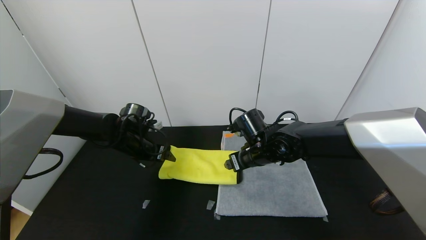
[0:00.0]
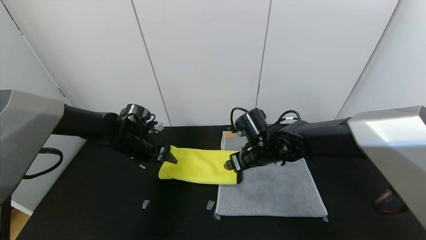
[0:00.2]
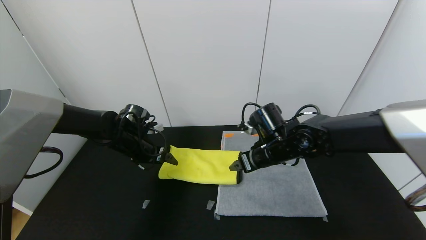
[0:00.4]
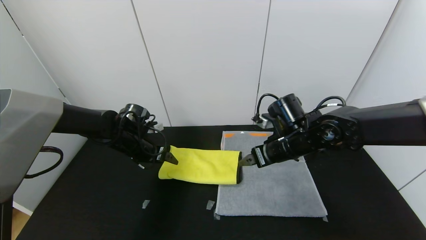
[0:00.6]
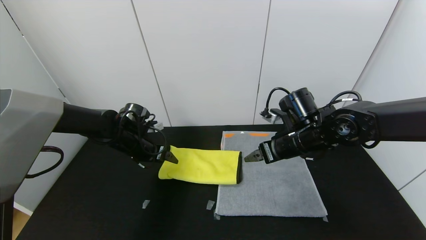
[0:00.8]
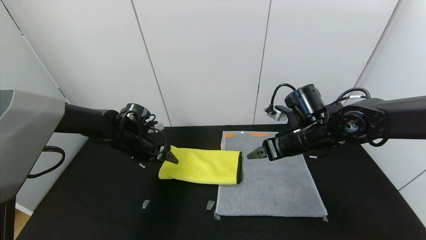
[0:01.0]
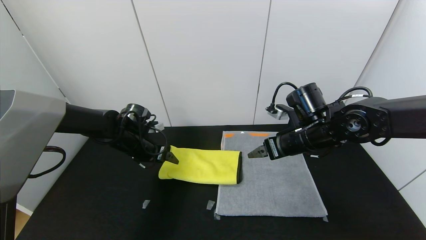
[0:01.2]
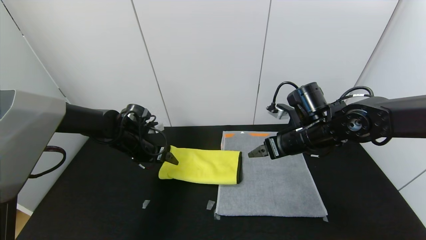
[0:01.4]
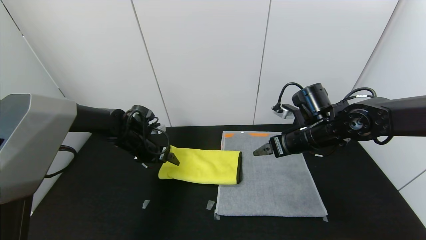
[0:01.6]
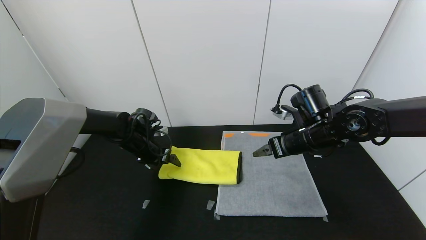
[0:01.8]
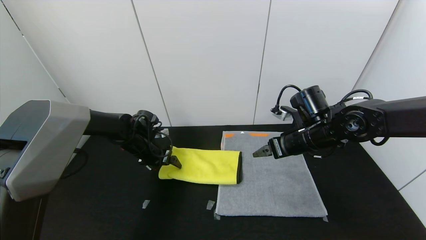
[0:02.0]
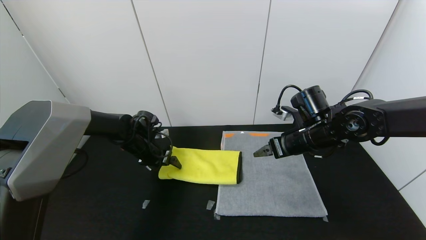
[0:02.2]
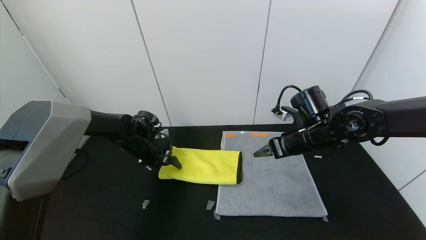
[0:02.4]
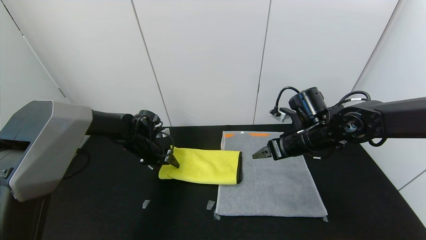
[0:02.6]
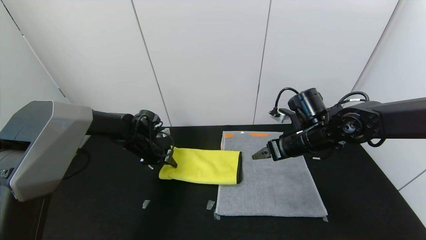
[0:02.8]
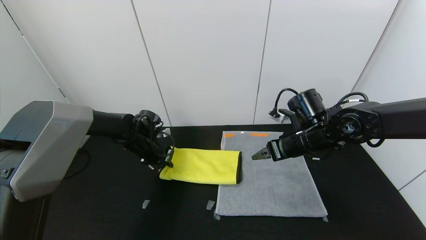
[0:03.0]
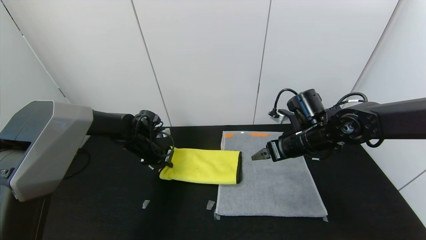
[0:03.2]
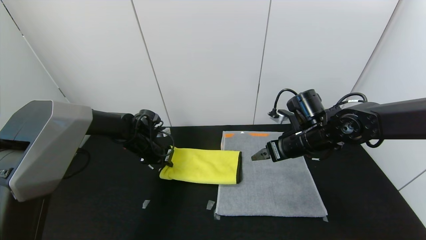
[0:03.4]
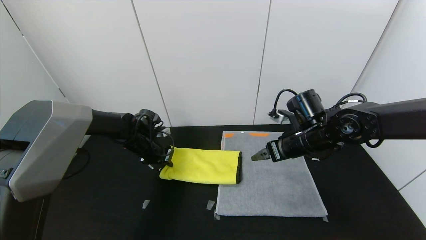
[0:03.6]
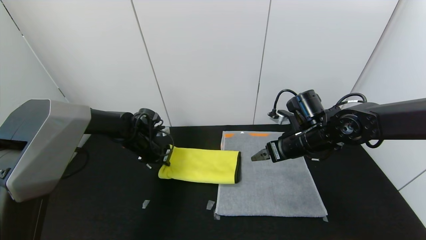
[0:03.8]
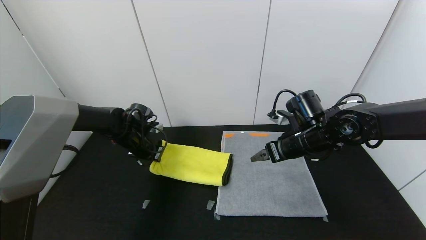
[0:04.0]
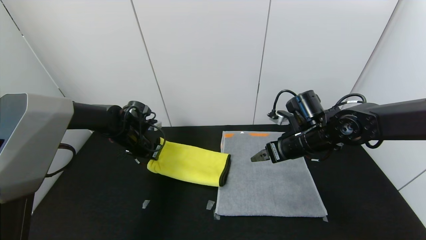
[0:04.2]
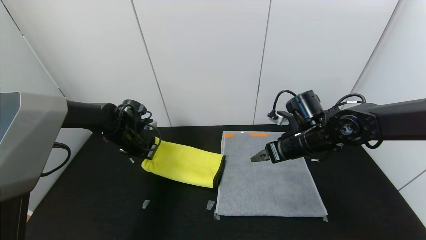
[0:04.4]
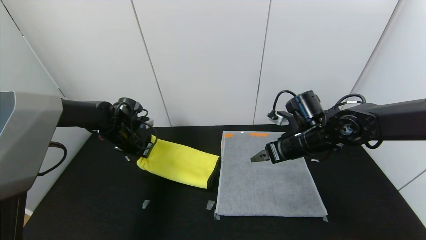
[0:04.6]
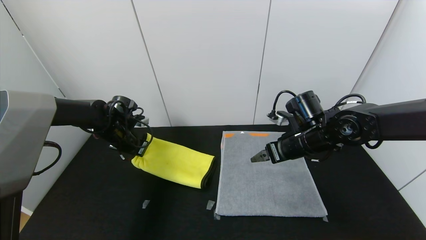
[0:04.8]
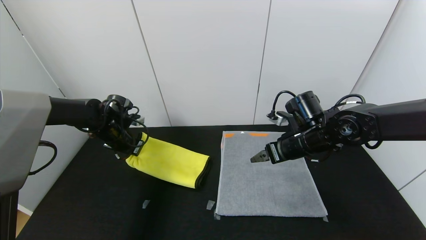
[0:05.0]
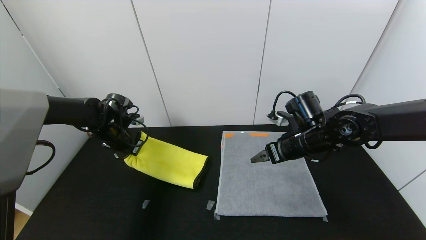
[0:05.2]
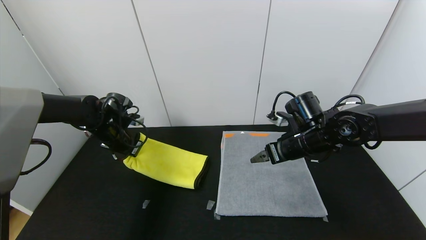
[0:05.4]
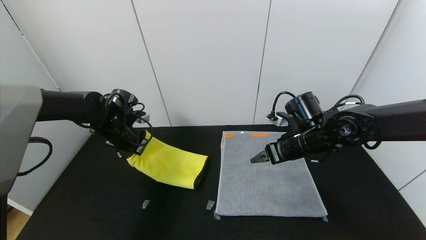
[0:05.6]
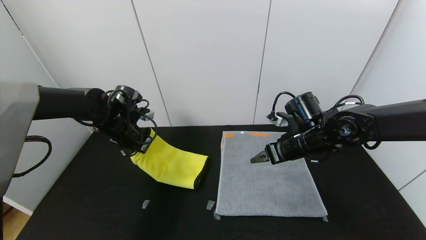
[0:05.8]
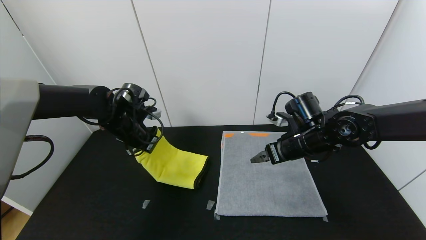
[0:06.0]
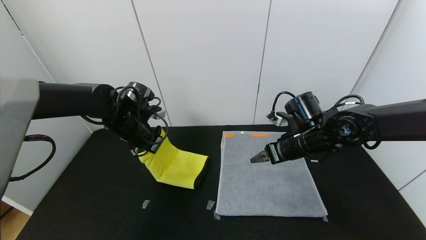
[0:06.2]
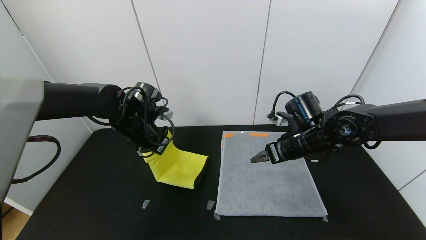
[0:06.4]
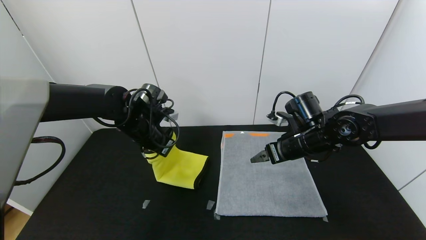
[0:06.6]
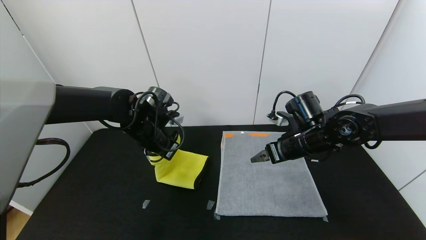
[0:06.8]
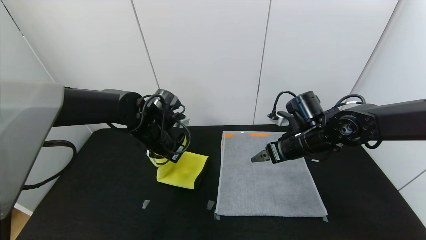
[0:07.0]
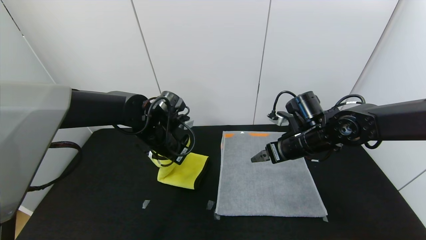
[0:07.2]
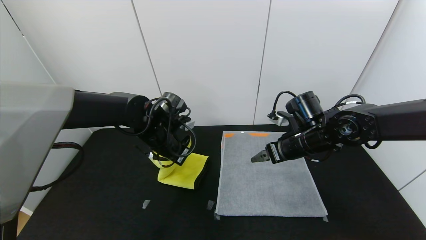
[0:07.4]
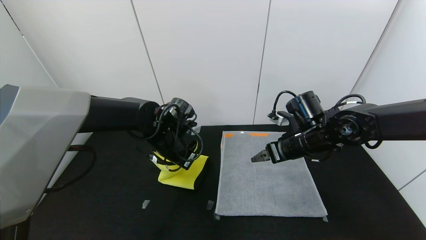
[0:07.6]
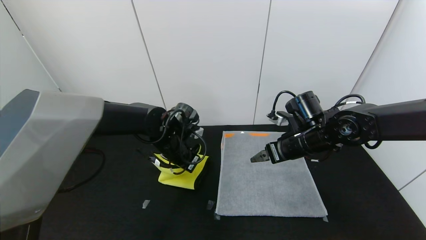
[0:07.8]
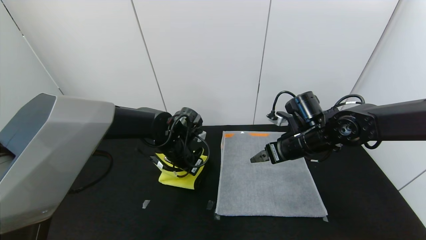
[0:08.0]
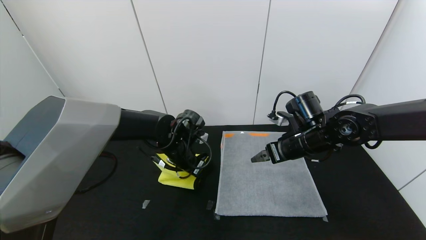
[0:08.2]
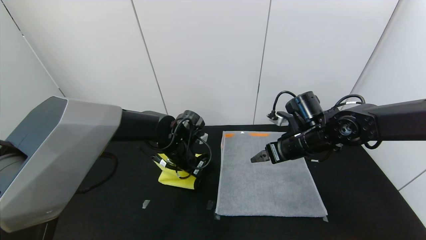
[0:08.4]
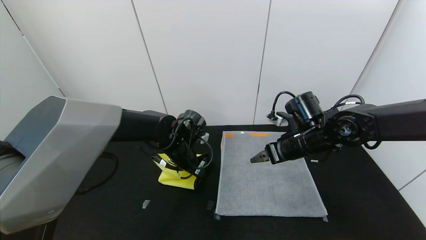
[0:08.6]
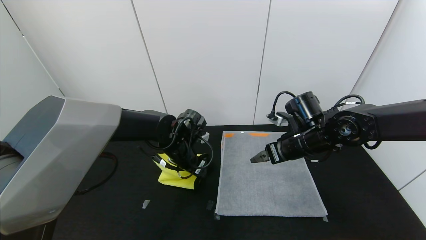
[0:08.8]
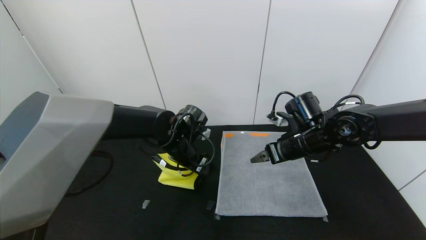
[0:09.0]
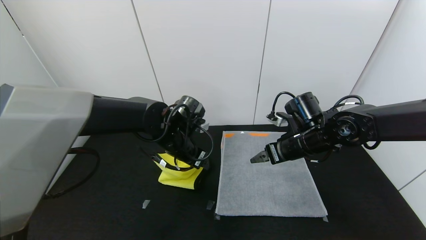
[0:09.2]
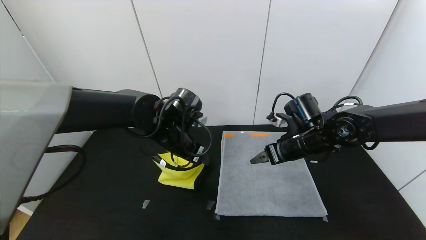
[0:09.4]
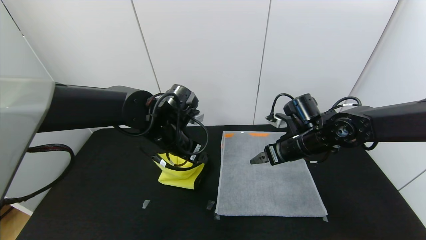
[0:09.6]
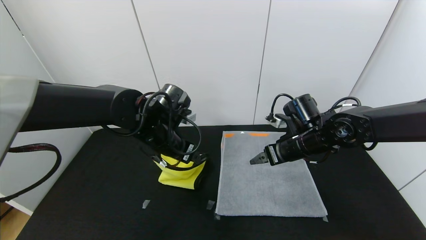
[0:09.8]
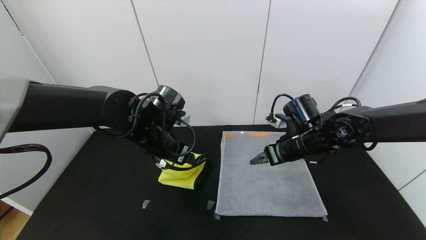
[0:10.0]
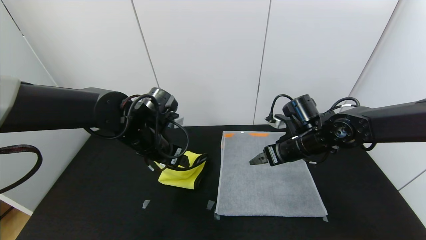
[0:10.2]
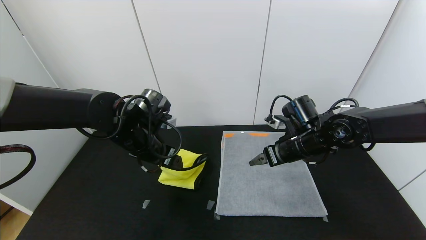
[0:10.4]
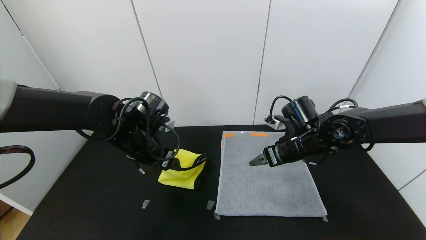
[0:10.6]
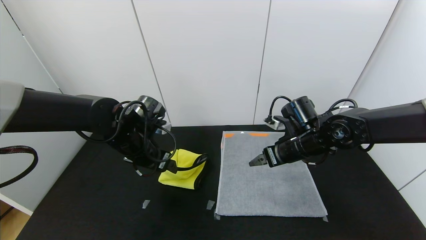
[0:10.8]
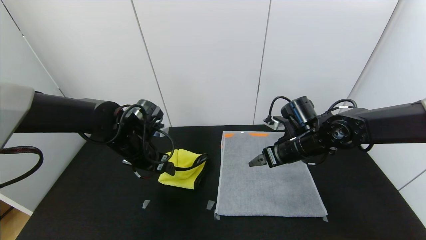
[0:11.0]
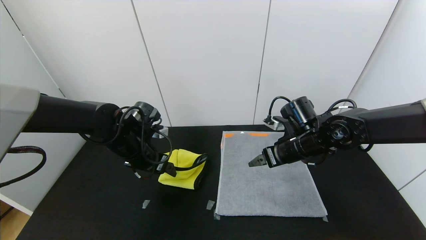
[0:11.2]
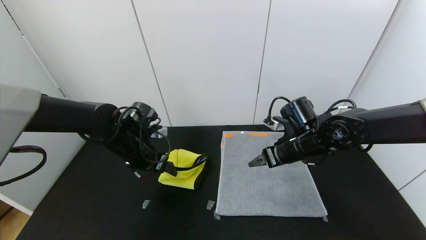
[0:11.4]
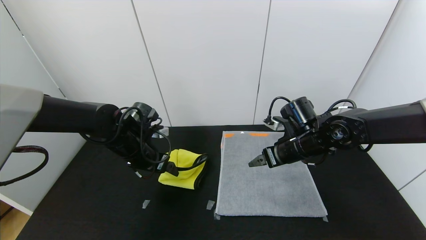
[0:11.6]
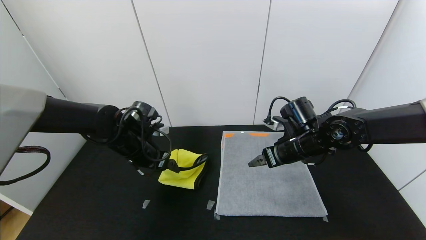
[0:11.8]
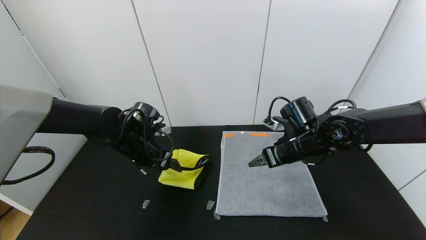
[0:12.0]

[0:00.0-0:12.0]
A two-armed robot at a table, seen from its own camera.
Task of the whole recording: Use the gripper to fold the yellow towel and grey towel in half twice,then put the yellow towel on the grey towel.
0:00.0 to 0:01.6: The right gripper heads to the right and upward, covering some 10 cm.
0:01.6 to 0:03.0: The left gripper closes.
0:03.0 to 0:04.4: The grippers move only a little.
0:04.4 to 0:06.0: The left gripper travels upward by some 5 cm.
0:06.0 to 0:07.6: The left gripper heads to the right, covering some 10 cm.
0:07.6 to 0:09.0: The left gripper opens up.
0:09.0 to 0:10.4: The left gripper is displaced to the left by some 5 cm.
0:10.4 to 0:12.0: The left gripper ends up approximately 5 cm from where it was.

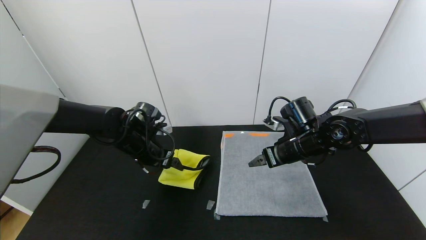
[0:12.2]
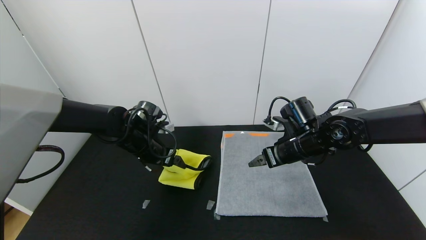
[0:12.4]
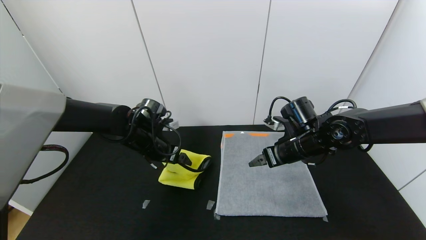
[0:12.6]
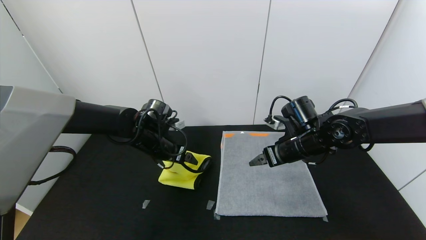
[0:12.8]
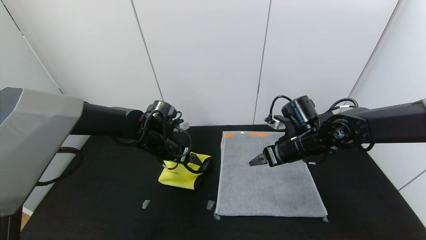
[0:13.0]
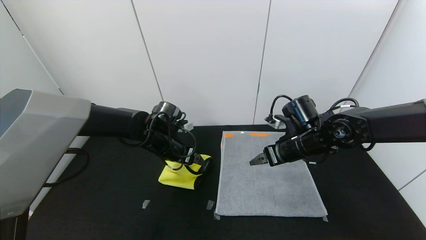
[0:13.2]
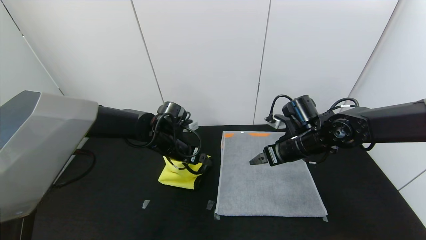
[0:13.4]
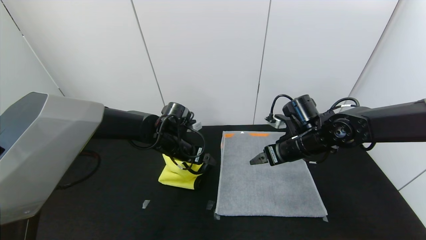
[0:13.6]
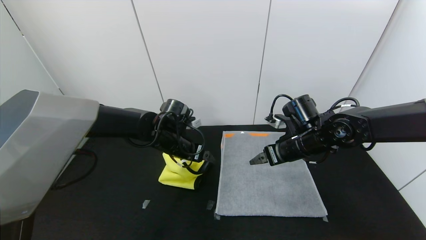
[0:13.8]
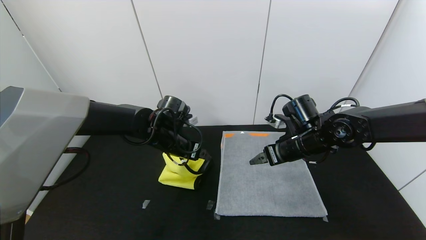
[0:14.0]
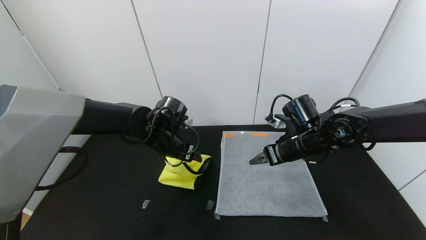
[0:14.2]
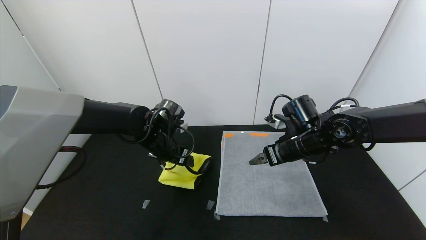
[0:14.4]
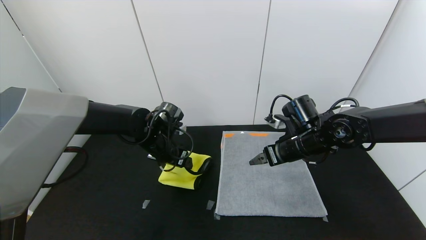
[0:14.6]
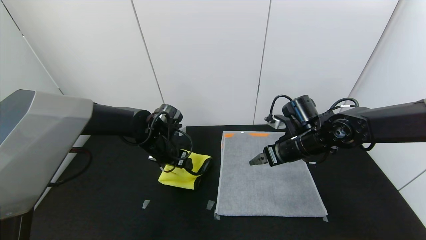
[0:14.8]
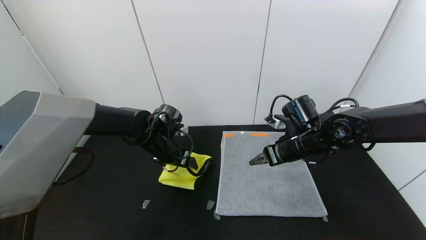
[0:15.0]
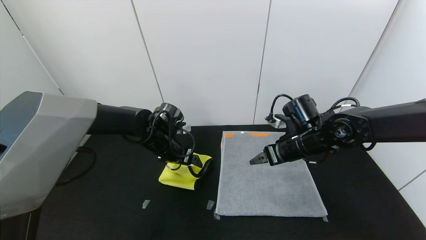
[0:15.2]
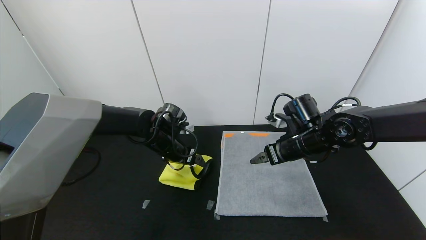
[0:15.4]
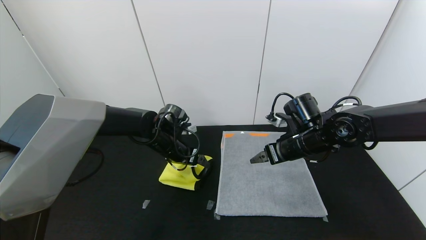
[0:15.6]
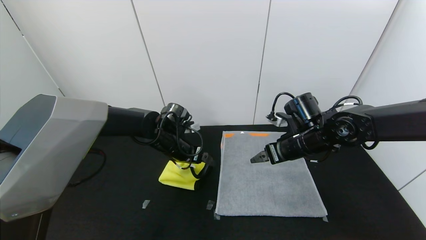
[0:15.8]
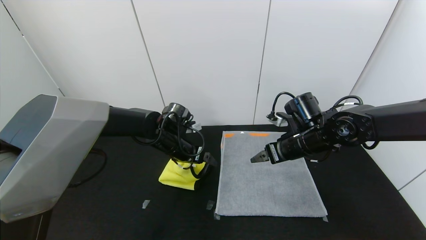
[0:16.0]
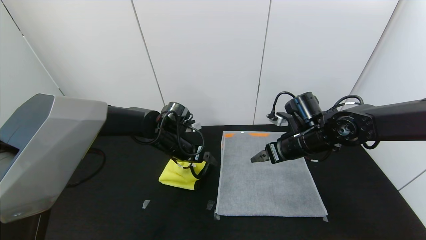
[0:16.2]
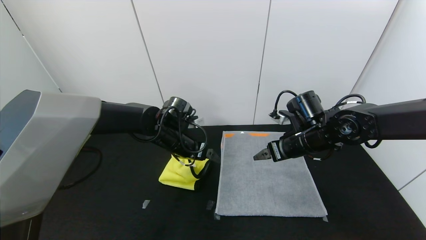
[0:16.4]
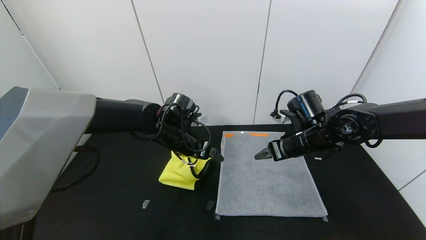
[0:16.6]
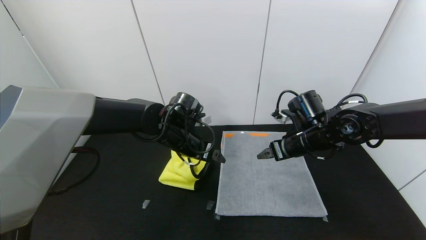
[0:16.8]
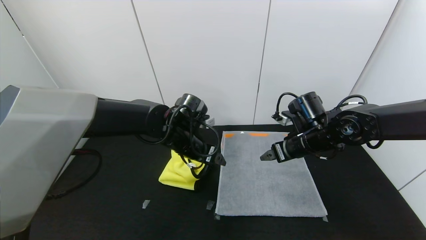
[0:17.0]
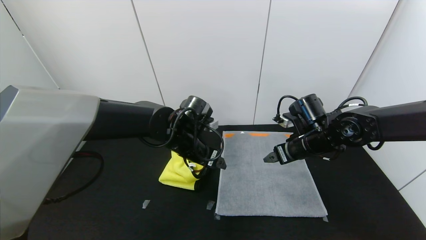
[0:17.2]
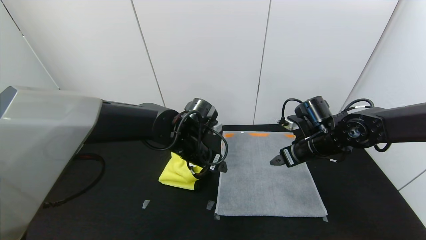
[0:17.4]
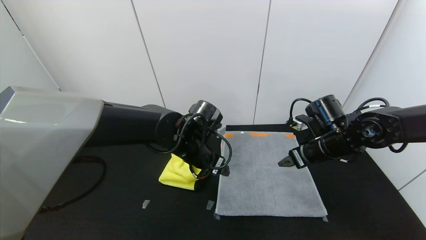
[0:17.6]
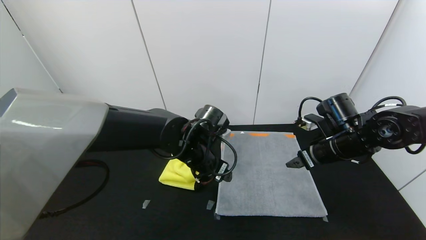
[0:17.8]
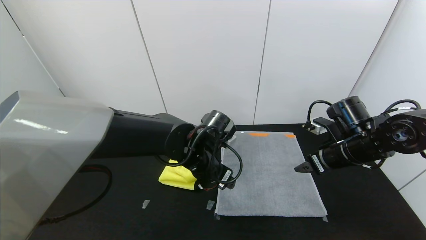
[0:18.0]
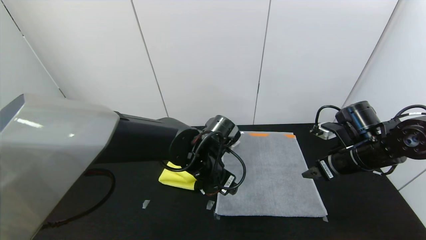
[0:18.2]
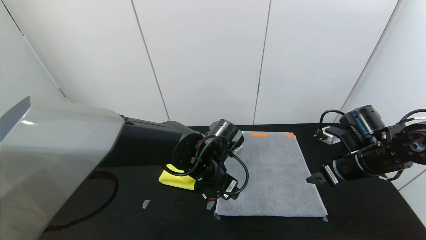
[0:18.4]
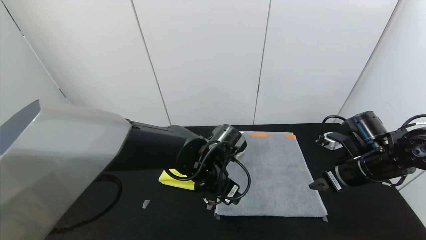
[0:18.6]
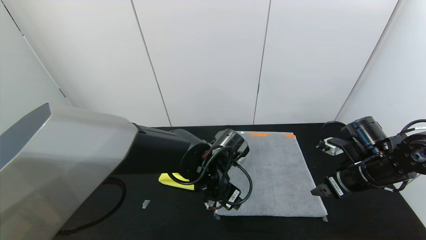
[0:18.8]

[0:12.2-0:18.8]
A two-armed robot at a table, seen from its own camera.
Task of the whole recording: Use the gripper to fold the yellow towel and grey towel in half twice,then put the yellow towel on the grey towel.
Step, 0:12.2 to 0:17.4: Fold the yellow towel from left to right with left gripper.
0:12.2 to 0:13.8: The left gripper goes about 5 cm to the right.
0:15.4 to 0:17.2: The left gripper shifts approximately 5 cm to the right.
0:17.2 to 0:18.8: The right gripper moves to the right and backward, roughly 10 cm. Meanwhile the left gripper shifts approximately 10 cm backward and to the right.
